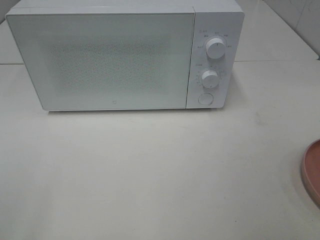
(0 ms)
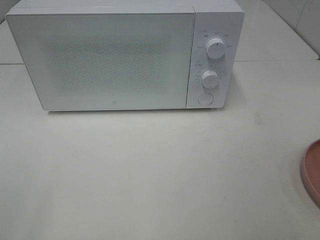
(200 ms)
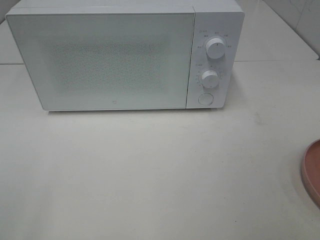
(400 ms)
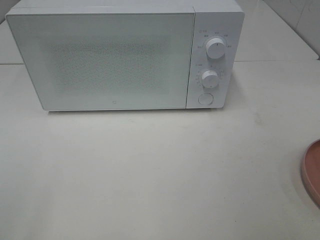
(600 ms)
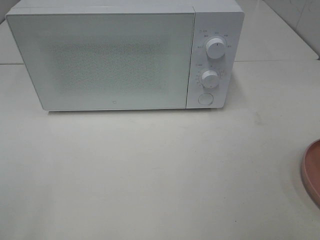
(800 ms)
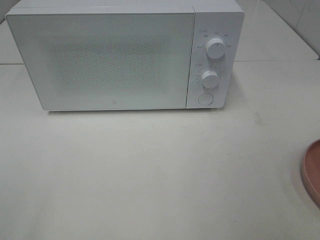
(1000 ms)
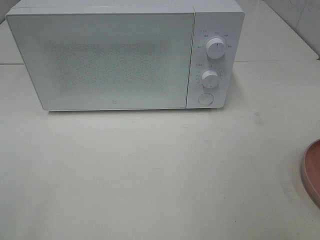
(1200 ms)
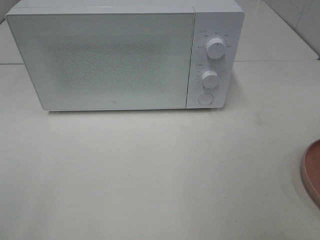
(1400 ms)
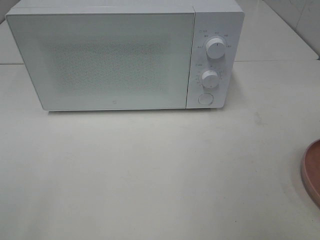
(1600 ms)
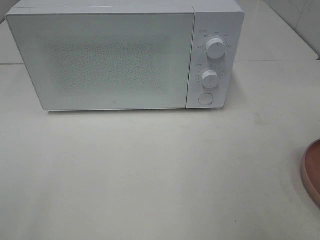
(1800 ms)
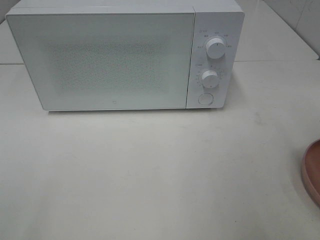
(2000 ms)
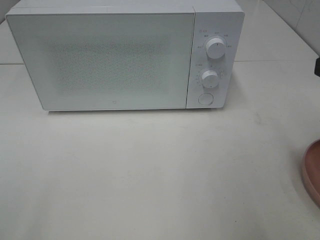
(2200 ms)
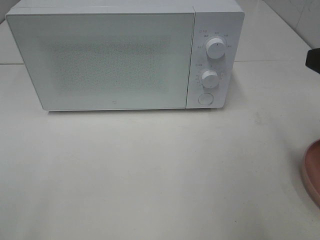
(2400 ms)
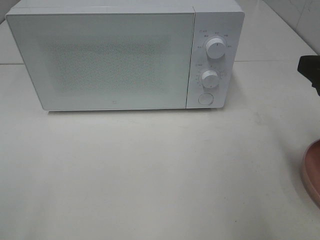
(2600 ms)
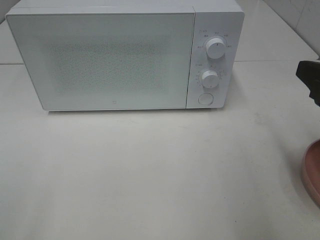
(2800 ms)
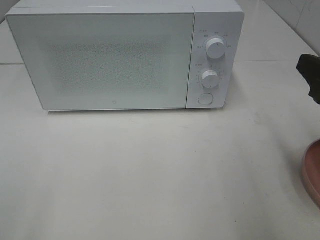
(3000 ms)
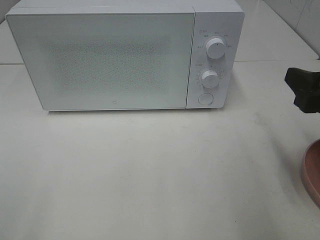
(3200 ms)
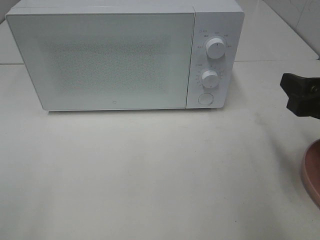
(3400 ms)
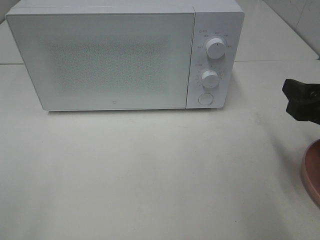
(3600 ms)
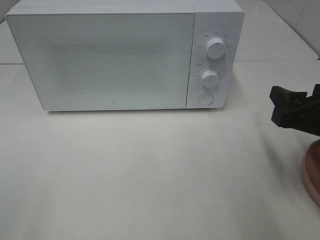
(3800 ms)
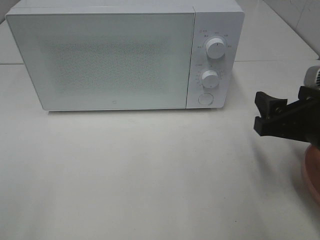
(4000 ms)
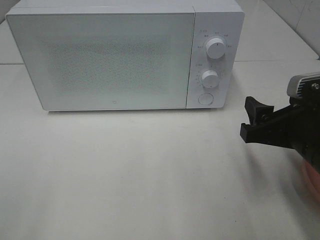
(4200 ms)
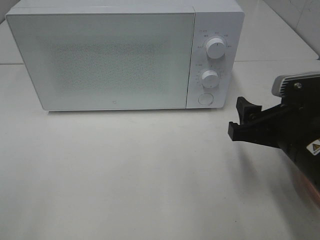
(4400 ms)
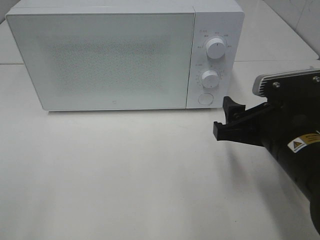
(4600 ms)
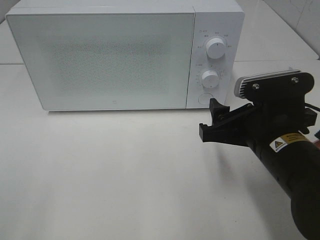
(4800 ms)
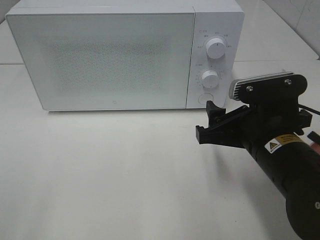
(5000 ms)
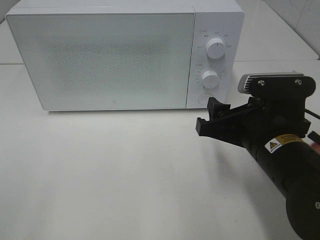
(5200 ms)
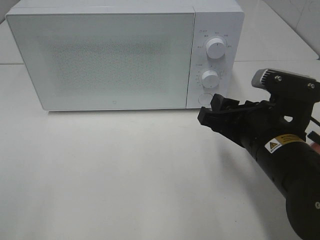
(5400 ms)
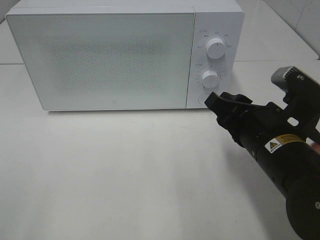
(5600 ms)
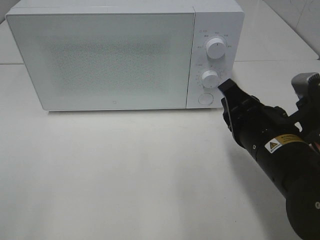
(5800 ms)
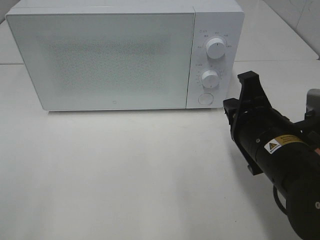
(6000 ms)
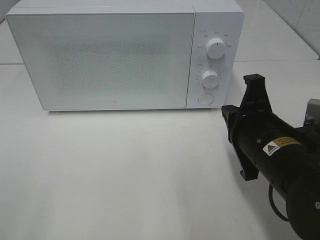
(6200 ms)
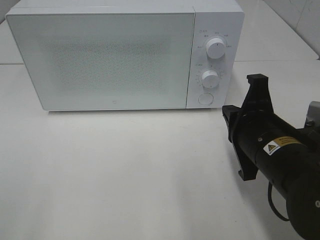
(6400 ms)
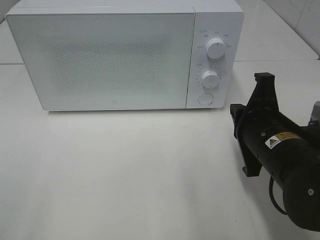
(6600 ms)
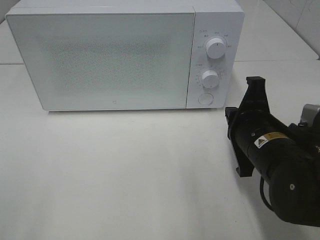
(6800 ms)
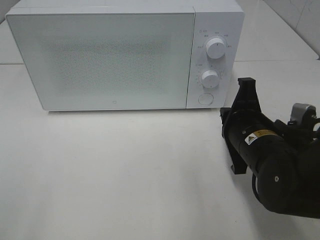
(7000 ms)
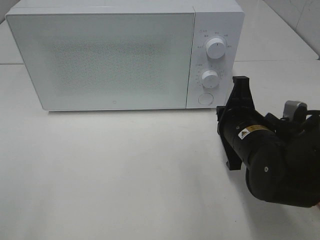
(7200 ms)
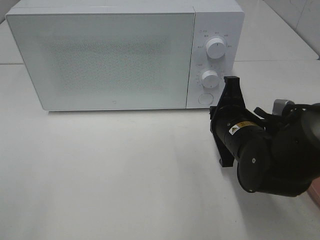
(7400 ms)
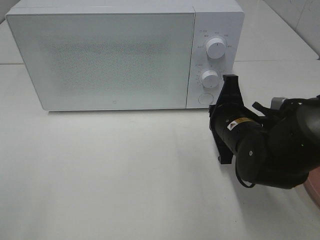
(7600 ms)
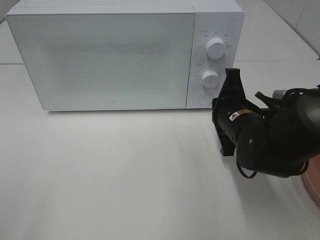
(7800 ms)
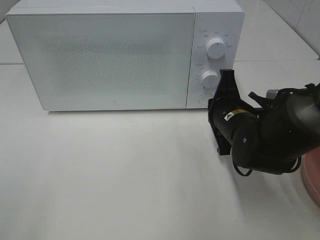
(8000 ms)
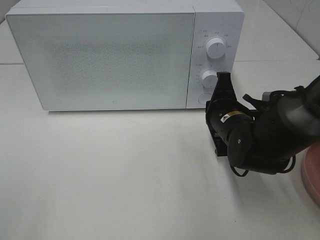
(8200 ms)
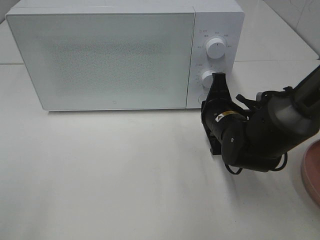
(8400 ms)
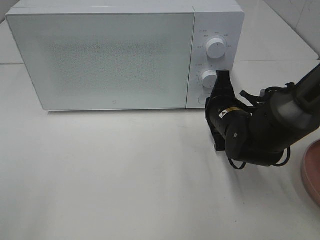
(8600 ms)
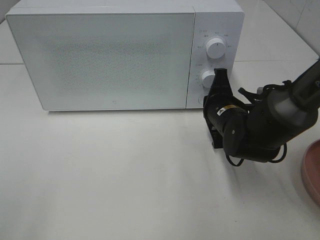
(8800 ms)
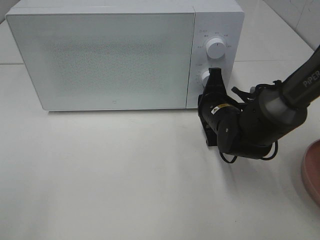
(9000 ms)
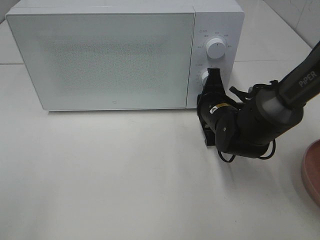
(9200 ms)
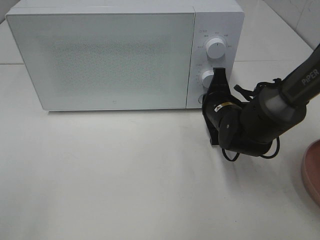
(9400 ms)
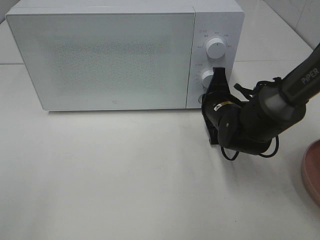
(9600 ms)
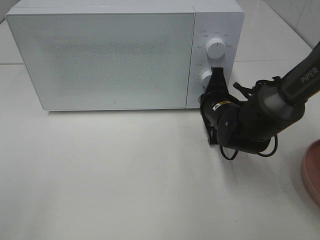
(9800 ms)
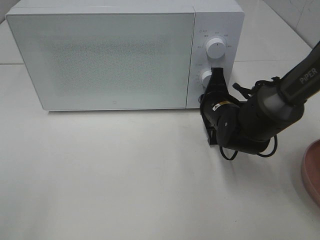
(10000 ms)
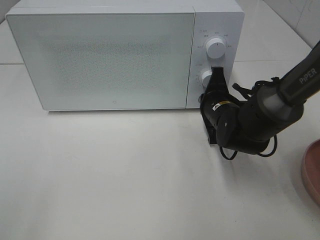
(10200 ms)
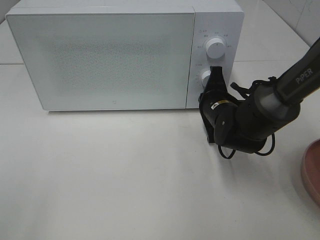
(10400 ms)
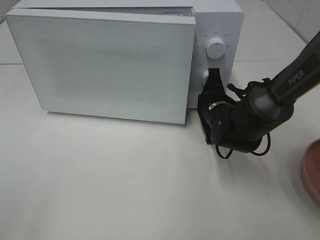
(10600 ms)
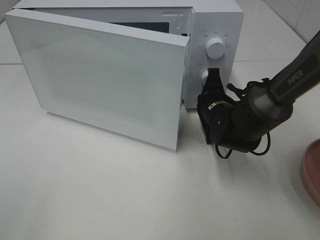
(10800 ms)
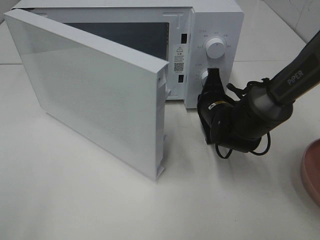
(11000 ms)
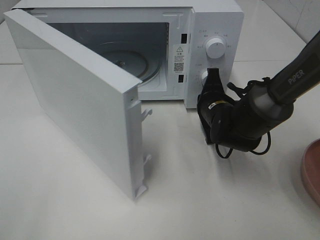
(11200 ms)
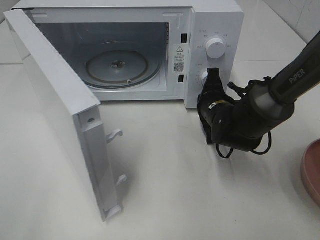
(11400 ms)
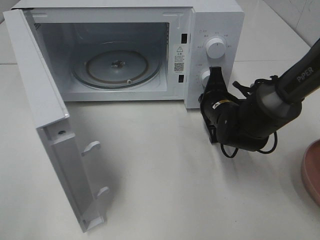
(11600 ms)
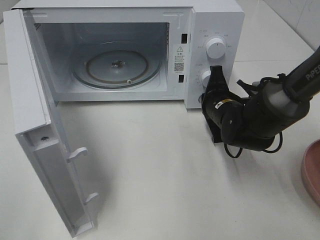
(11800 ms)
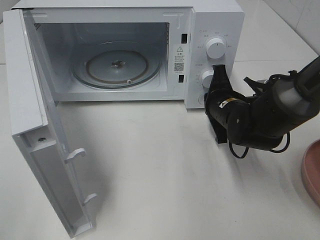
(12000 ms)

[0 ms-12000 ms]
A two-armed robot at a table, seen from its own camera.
Task of the whole recording: Heat the burger.
1600 ms to 3000 ms: The right gripper is displaced downward and forward by about 10 cm.
3000 ms to 4400 ms: The right gripper heads downward and to the left, covering roughly 10 cm.
4400 ms to 6000 ms: The right gripper closes up.
6000 ms to 7600 ms: The right gripper is displaced forward by some 10 cm.
7600 ms to 9000 ms: The right gripper moves forward, some 5 cm.
9000 ms to 10400 ms: There are only small adjustments of the grippers.

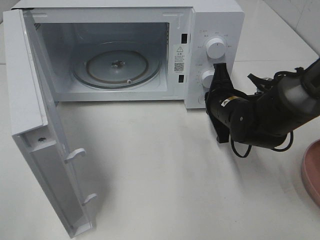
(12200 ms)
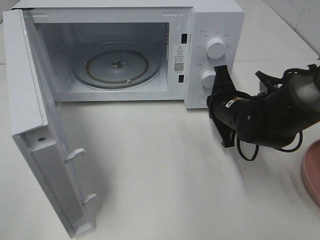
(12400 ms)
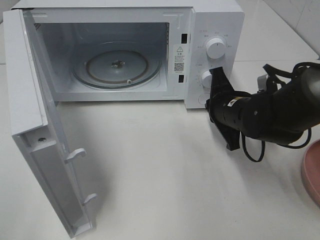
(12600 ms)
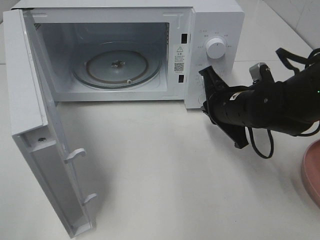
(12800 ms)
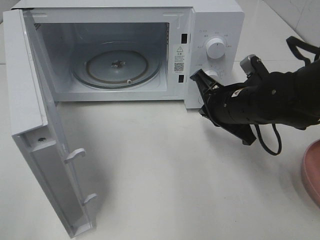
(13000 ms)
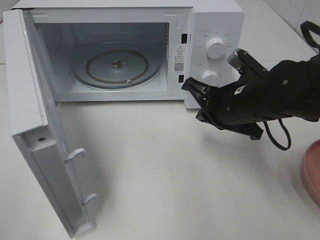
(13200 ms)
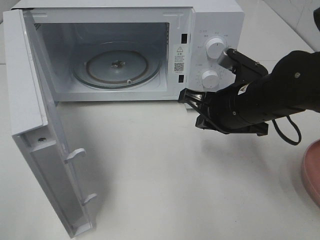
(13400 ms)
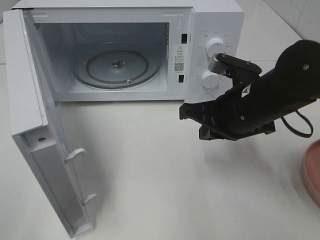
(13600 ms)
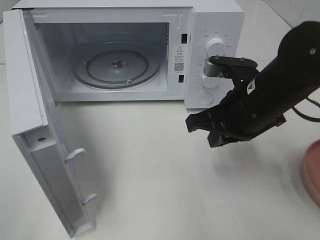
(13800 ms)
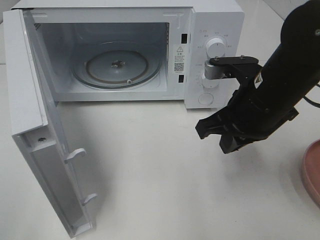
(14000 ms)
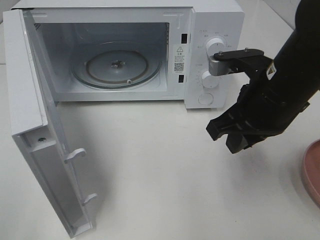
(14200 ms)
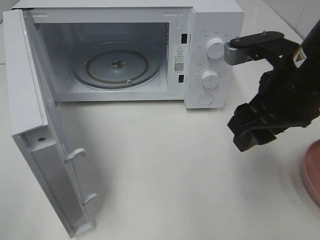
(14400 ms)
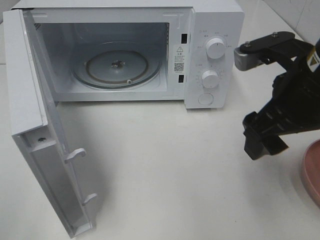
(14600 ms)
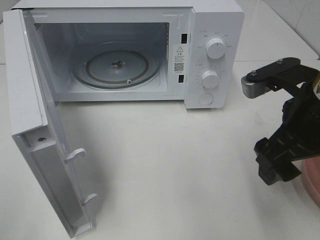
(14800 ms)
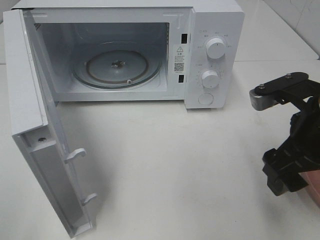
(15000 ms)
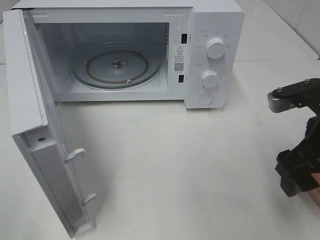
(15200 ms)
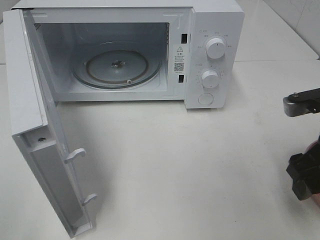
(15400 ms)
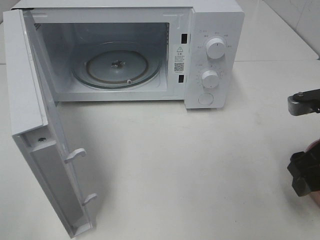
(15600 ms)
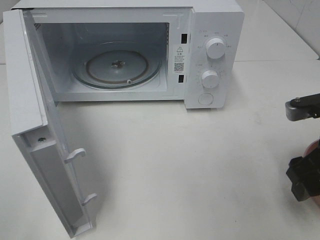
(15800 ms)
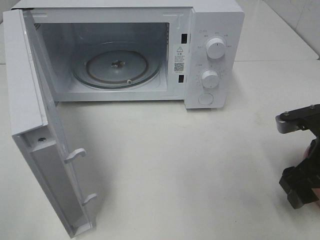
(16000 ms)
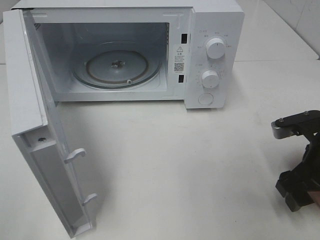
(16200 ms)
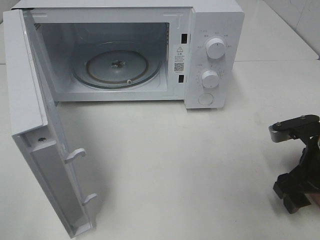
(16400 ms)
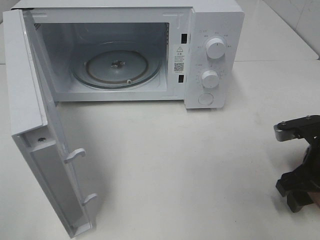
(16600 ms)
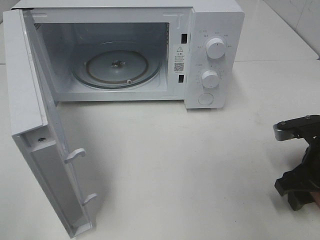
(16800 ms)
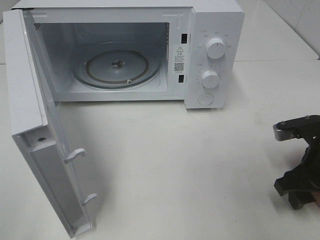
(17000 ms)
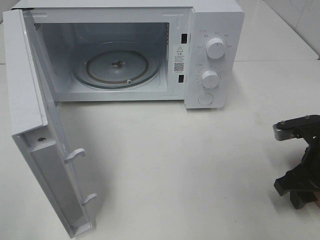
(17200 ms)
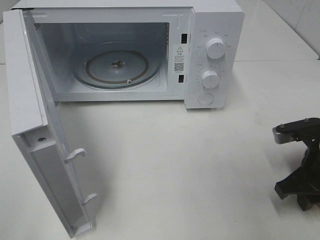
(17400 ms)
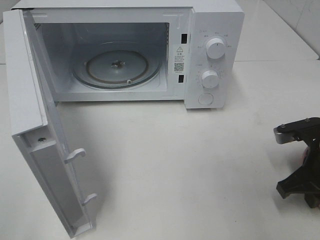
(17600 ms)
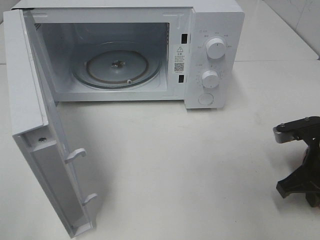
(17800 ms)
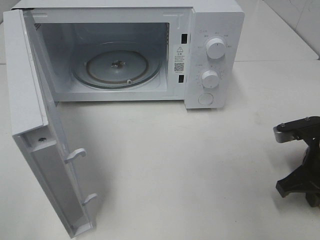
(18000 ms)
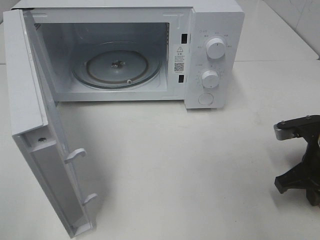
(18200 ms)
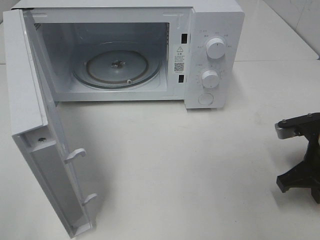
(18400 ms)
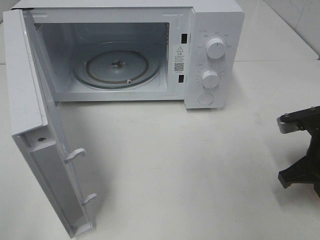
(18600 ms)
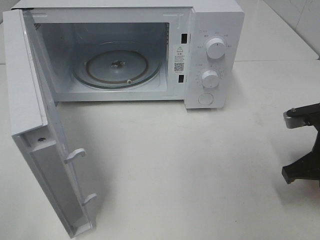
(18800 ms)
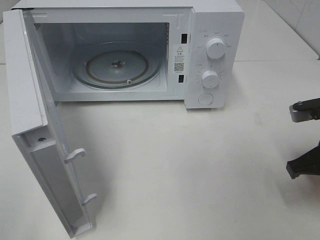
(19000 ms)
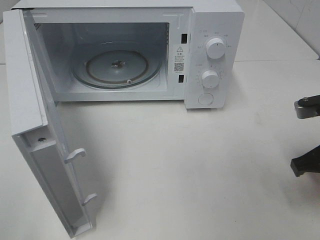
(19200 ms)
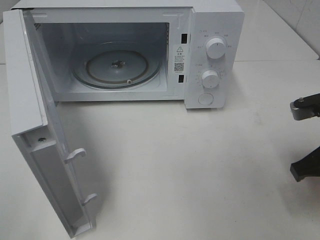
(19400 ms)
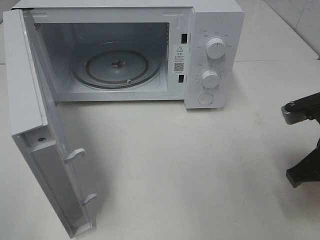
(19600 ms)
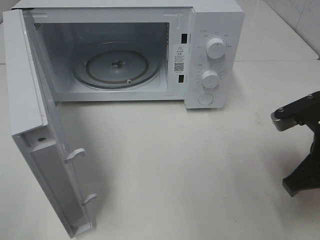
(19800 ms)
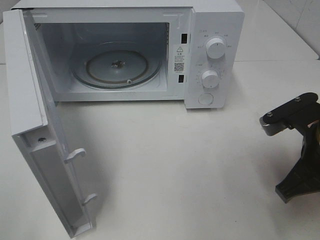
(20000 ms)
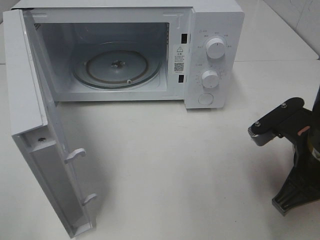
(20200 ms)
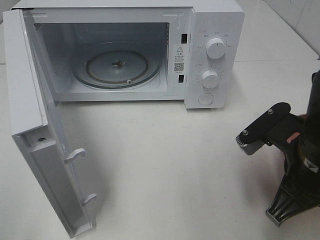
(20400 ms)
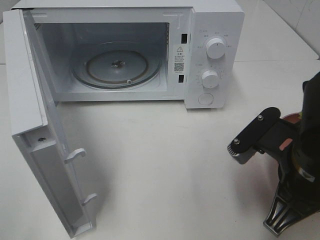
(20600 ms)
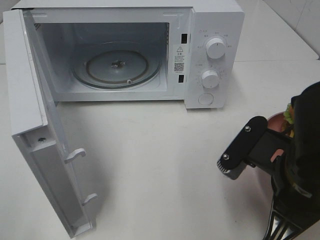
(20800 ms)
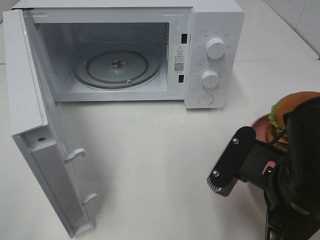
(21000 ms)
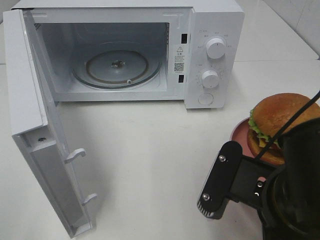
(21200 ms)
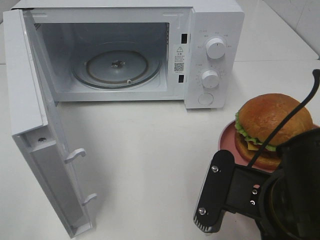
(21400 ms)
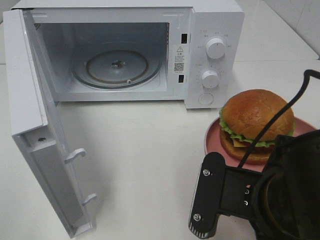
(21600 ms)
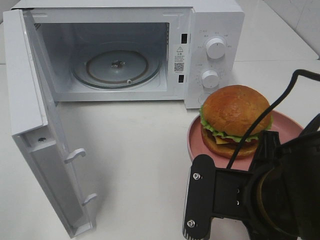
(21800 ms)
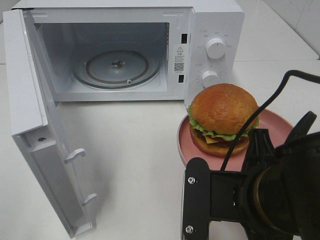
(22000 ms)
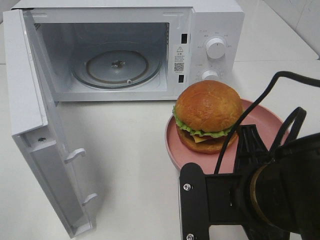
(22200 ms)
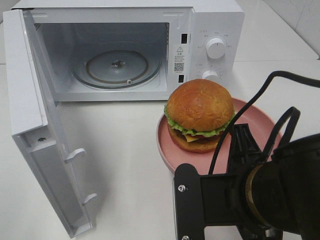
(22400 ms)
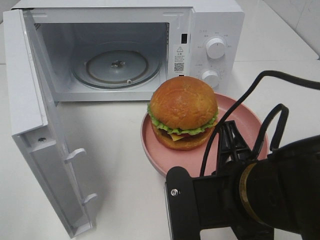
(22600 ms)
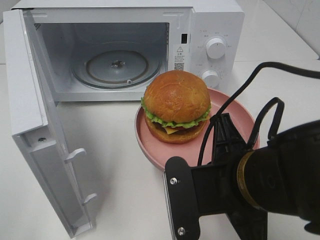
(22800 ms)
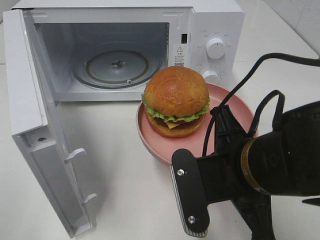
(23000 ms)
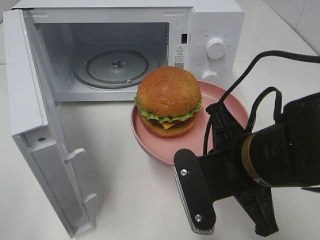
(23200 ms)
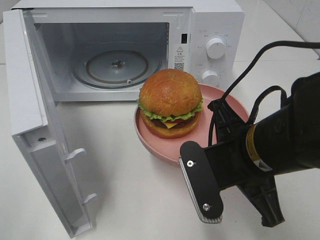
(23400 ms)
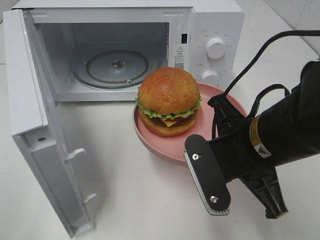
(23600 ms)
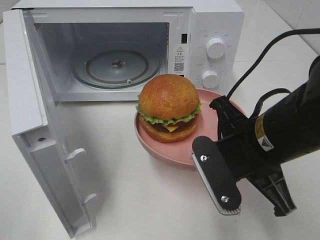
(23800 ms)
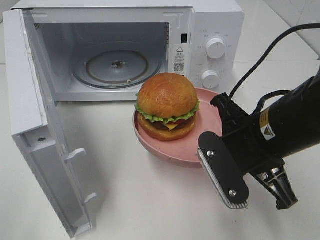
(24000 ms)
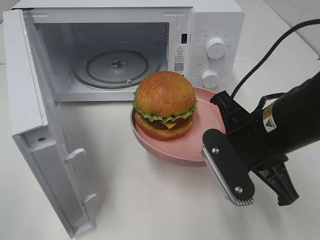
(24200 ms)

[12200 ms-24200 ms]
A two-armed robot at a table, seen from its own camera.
Task of the whole recording: Heat the burger.
Step, 12400 ms to 17800 ms: Right hand: grab the plate with the hamburger.
12200 ms to 13800 ms: The right gripper is displaced upward and backward by about 10 cm.
13800 ms to 15200 ms: The right gripper moves to the right and backward, roughly 10 cm, and opens its fingers.
15200 ms to 16600 ms: The right gripper goes some 10 cm downward.
16600 ms to 18200 ms: The right gripper closes.
18200 ms to 19800 ms: The right gripper moves upward, about 5 cm.
19800 ms to 21200 ms: The right gripper shifts approximately 15 cm to the left and backward.
22600 ms to 24200 ms: The right gripper is displaced forward by approximately 10 cm.
